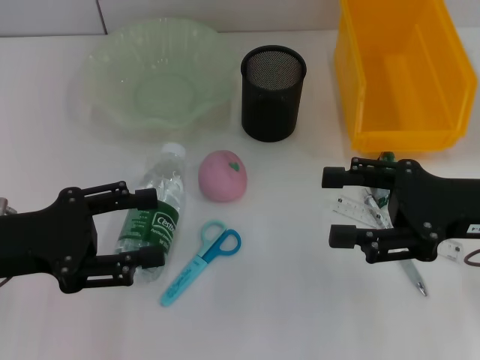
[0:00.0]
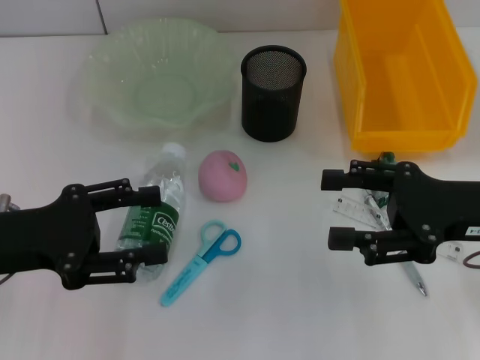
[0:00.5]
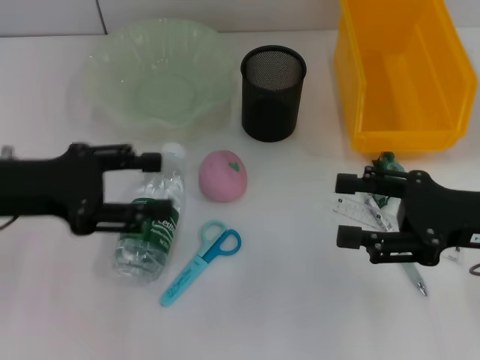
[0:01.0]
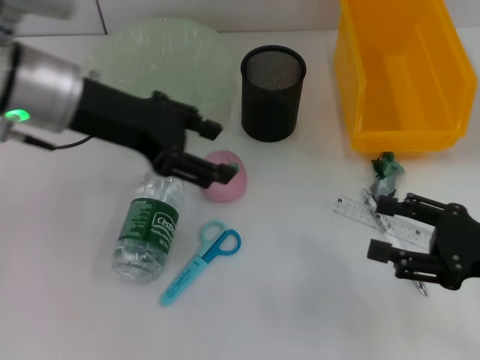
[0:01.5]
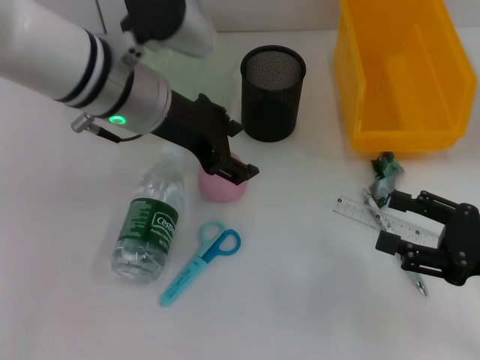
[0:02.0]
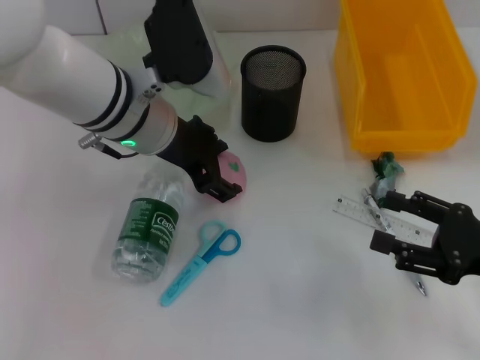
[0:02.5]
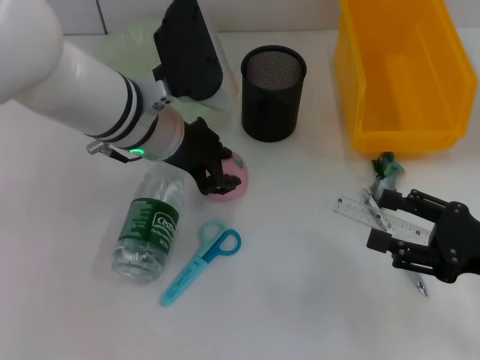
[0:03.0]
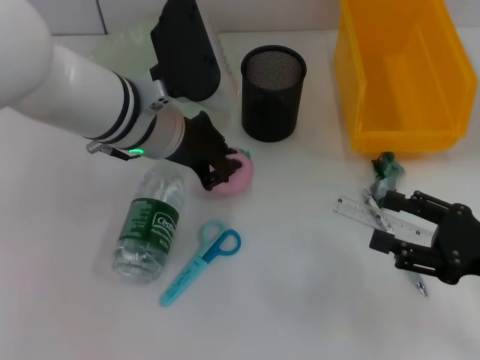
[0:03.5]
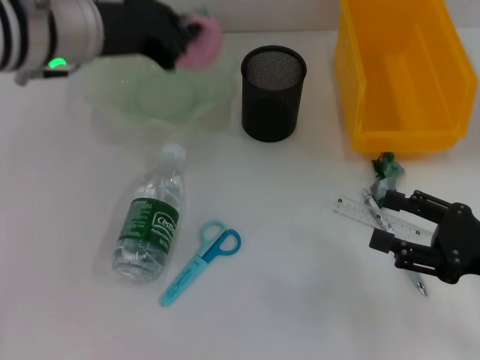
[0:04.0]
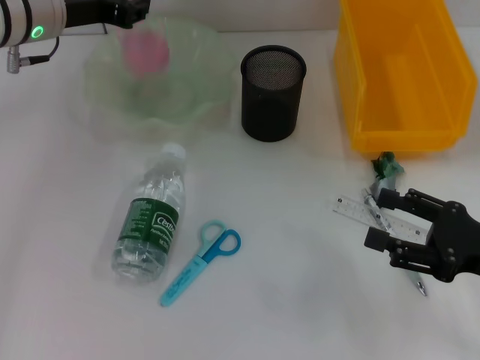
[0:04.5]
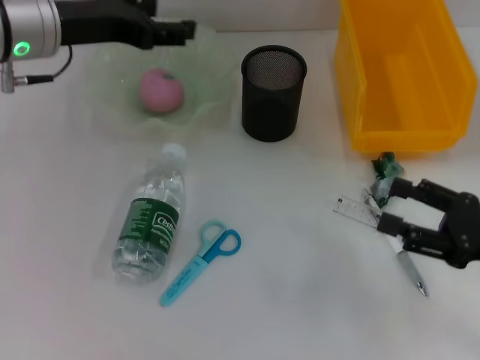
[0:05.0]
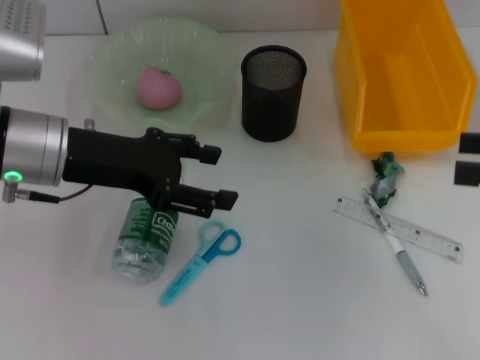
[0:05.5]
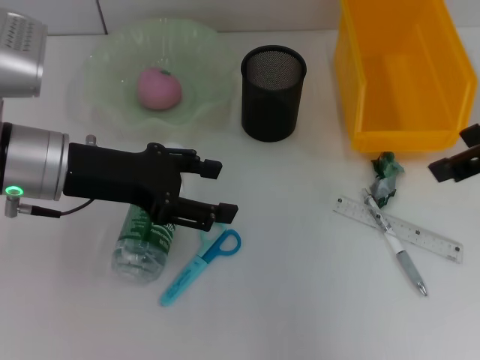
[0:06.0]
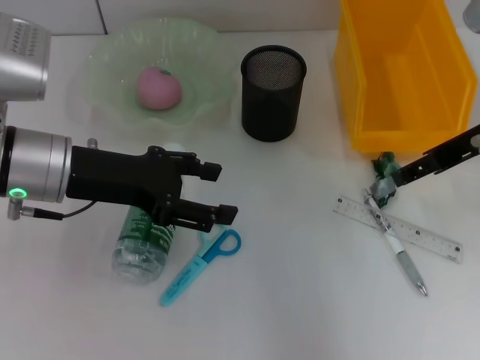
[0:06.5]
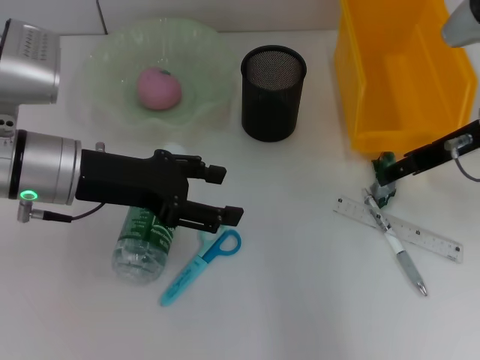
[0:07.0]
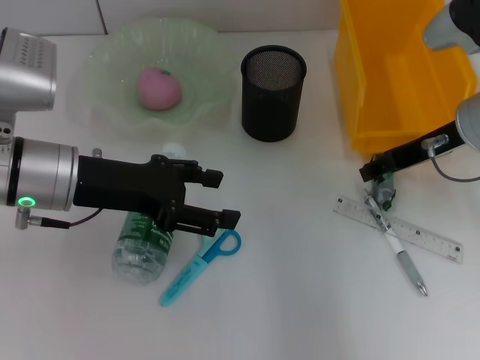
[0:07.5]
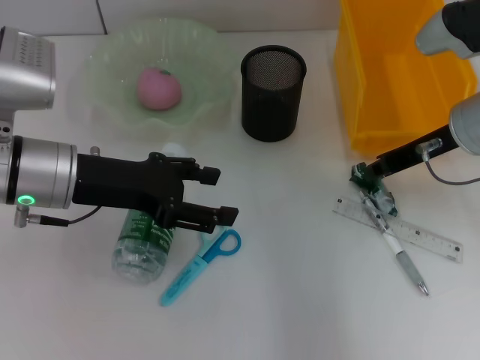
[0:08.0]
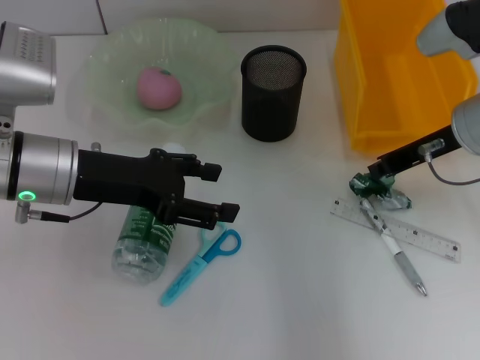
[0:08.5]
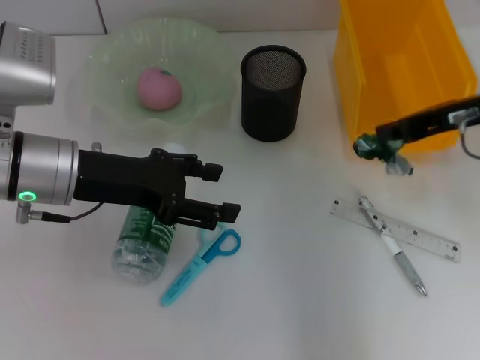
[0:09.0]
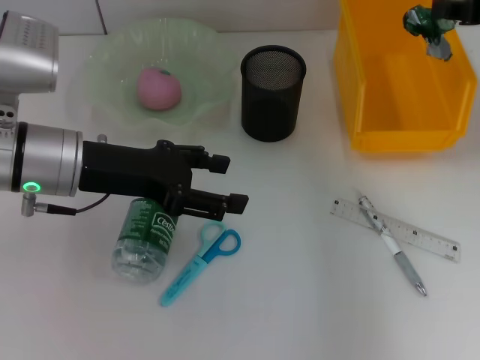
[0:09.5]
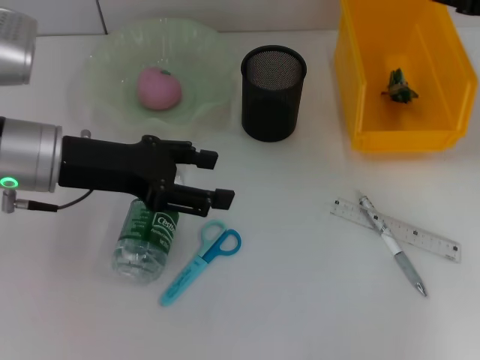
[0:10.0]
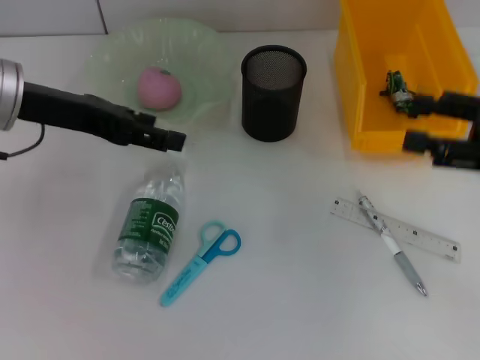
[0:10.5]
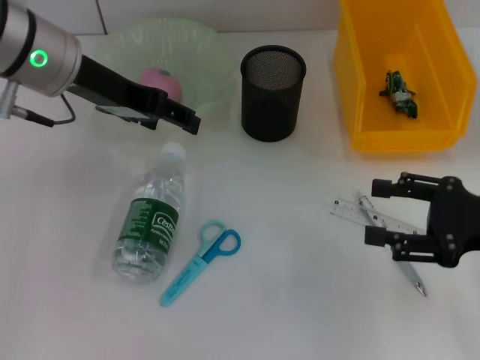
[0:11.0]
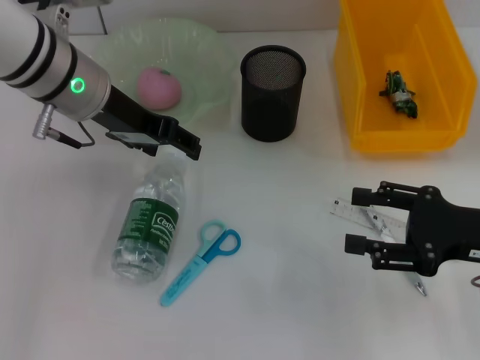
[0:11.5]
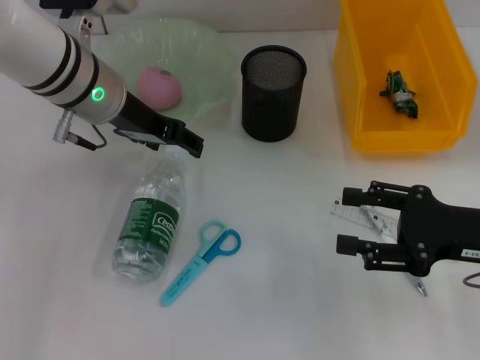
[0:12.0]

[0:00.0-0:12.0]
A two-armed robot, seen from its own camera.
Step, 0:00.0 to 0:03.0: Grab the peach with the left hand.
Step, 0:03.5 to 0:04.5: Place the peach into the fruit bowl with the left hand.
Step, 0:05.0 to 0:08.0: Grab the plastic with the right hand.
Step, 0:08.5 to 0:10.0: Place the plastic into the trash can with the right hand.
0:00.0 to 0:02.0: The left gripper shifts some 20 cm to the right and forward; the right gripper shifts roughly 10 cm downward and backward.
0:02.0 to 0:04.0: The left gripper moves some 5 cm, and closes its fingers.
0:04.0 to 0:06.0: The right gripper travels upward and forward by some 25 cm; the left gripper shifts approximately 10 cm downward and backward, and opens.
0:06.0 to 0:08.0: The right gripper moves downward and forward, some 15 cm, and closes up.
0:08.0 to 0:10.0: The right gripper moves to the right and upward, approximately 10 cm.
0:10.0 to 0:12.0: The right gripper goes approximately 15 cm backward and downward, and opens its fingers. The left gripper travels forward and to the right by some 10 cm.

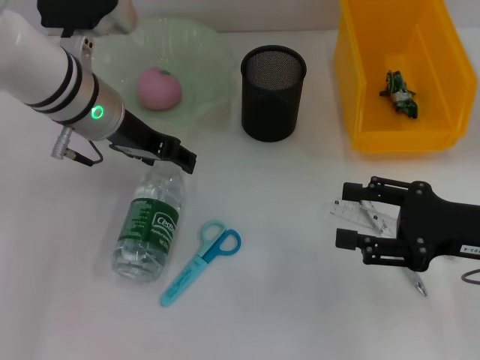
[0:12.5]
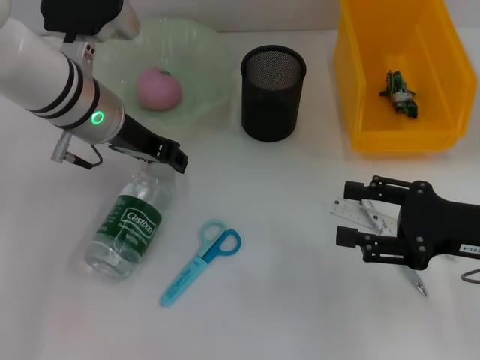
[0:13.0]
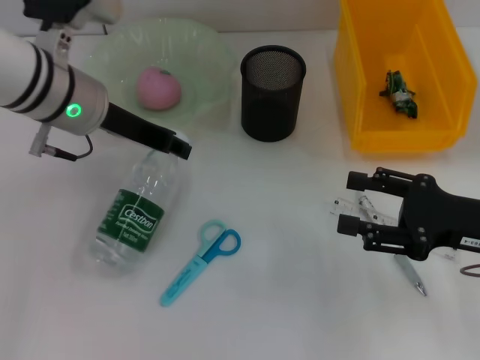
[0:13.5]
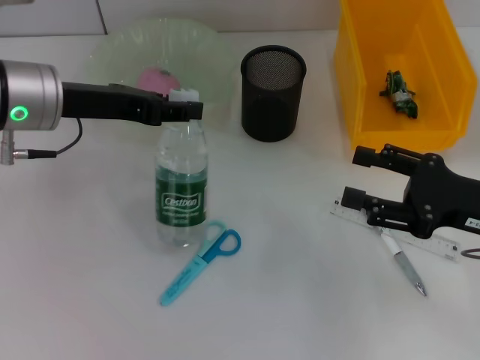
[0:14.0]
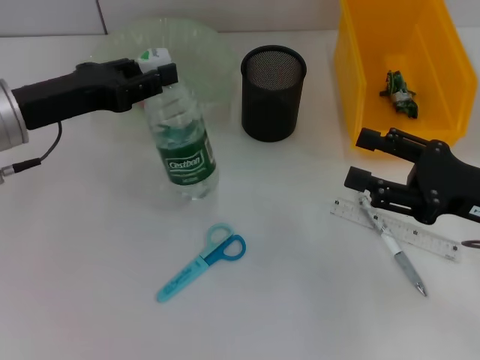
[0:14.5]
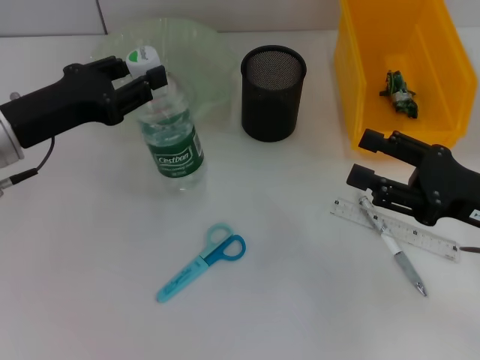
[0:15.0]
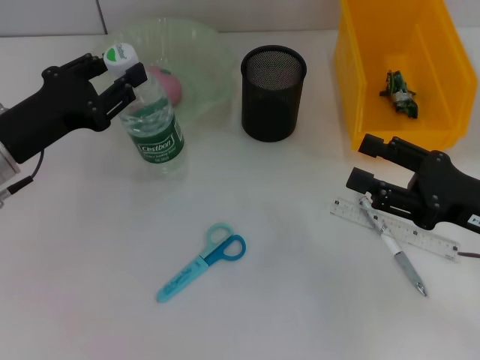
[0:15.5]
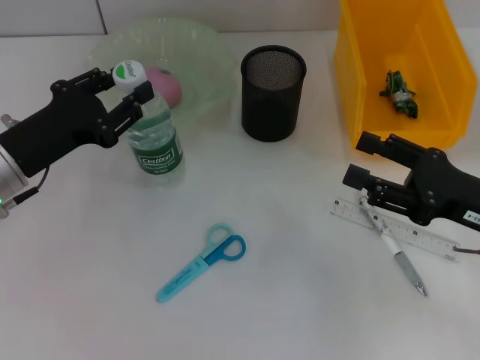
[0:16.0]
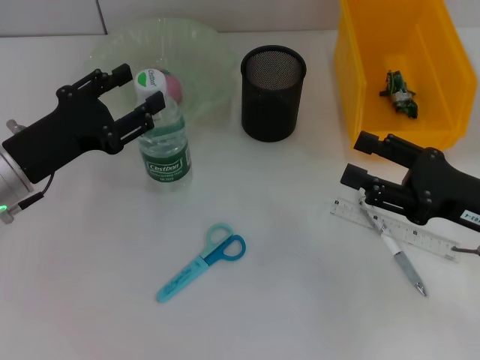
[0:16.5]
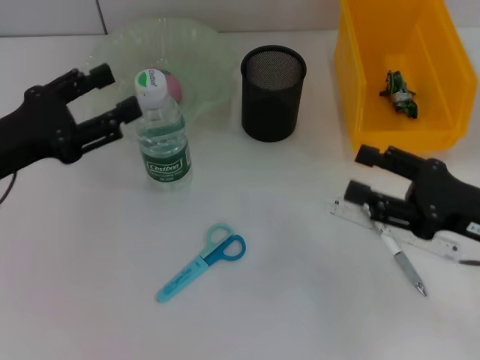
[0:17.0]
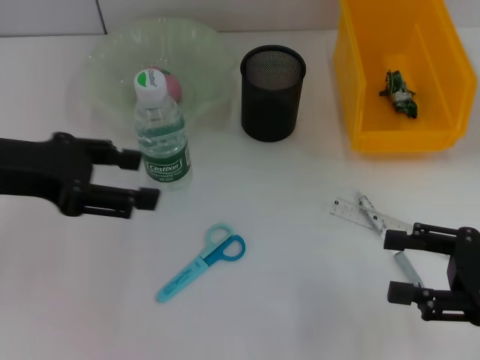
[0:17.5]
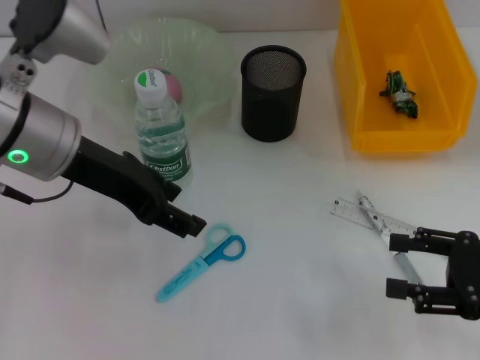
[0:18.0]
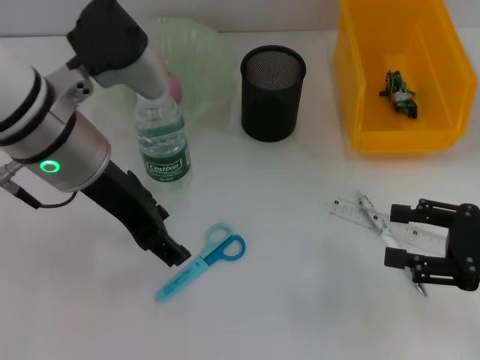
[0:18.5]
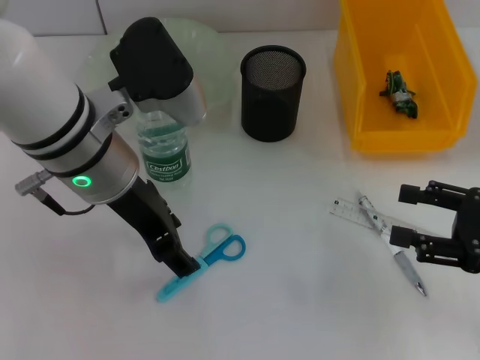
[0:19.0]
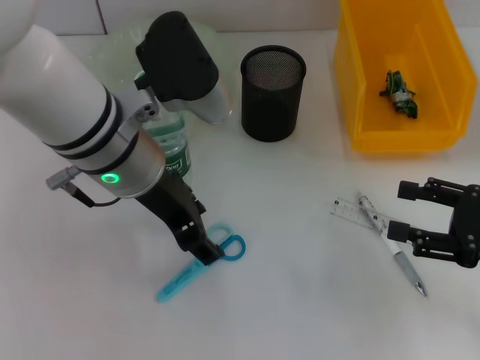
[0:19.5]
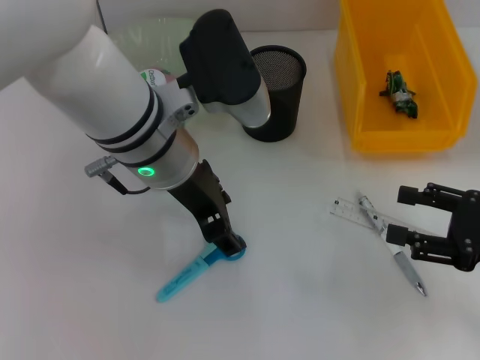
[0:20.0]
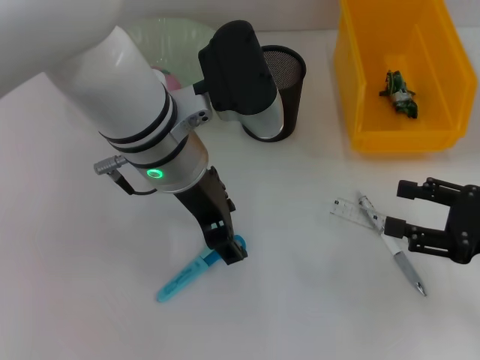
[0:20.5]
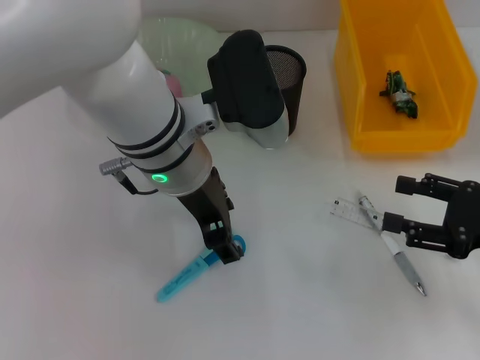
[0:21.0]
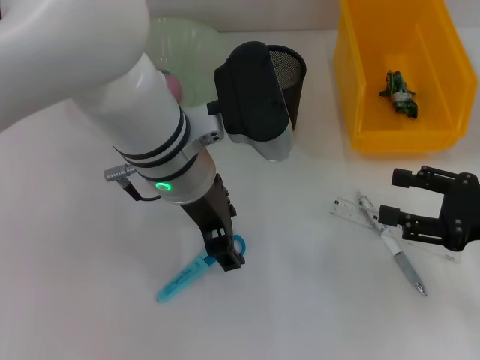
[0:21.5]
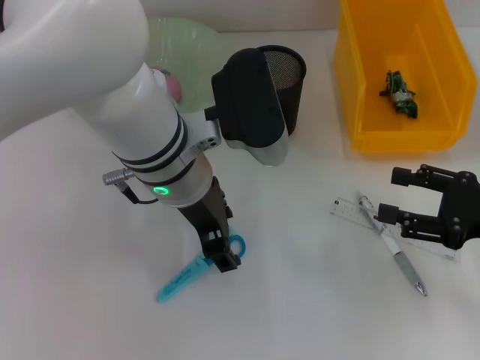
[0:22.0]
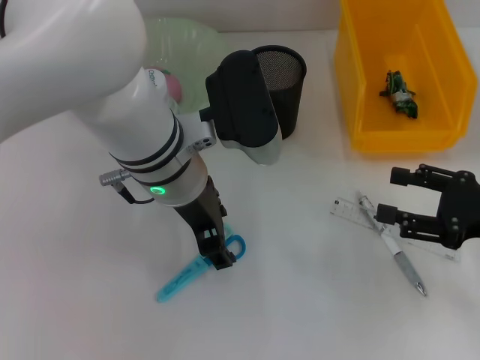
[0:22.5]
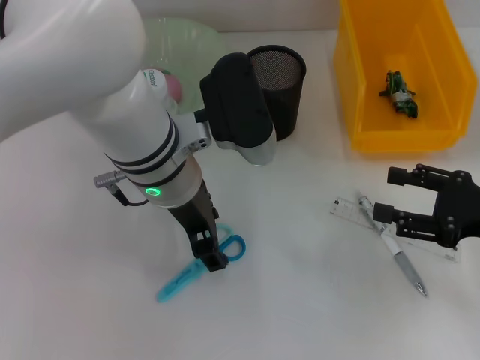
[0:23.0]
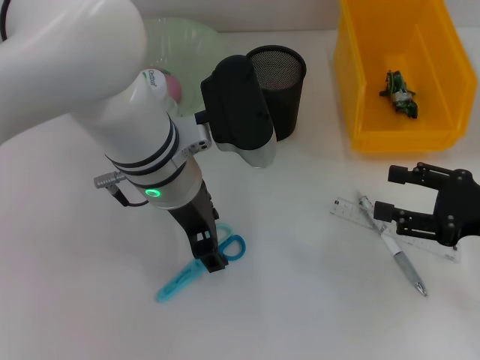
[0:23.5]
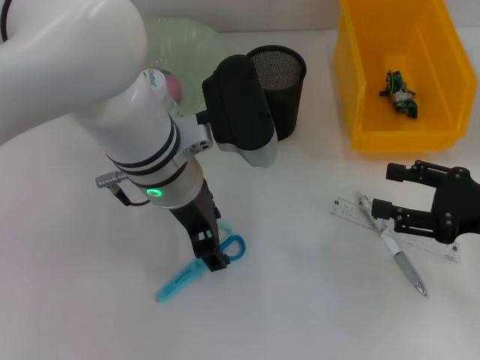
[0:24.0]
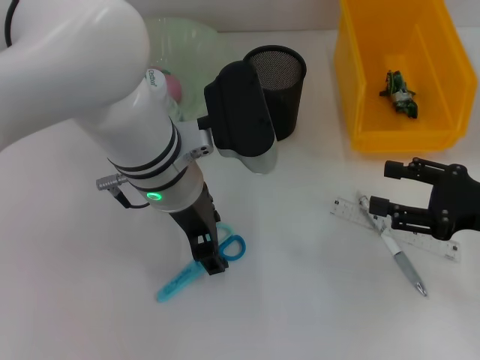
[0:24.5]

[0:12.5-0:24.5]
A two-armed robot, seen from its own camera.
Step, 0:13.5 to 0:16.5: Place the water bottle on the table with the left hand.
0:12.5 to 0:14.5: The left gripper shifts approximately 10 cm to the left and backward, and closes.
0:14.5 to 0:16.5: The left gripper travels downward by approximately 5 cm.
0:16.5 to 0:18.5: The left gripper moves upward and to the right, about 15 cm, while the right gripper shifts by roughly 5 cm.
0:18.5 to 0:20.5: The left gripper travels to the right by about 10 cm.
0:20.5 to 0:22.5: There are only small adjustments of the grippers.
0:22.5 to 0:24.5: Neither gripper changes place.

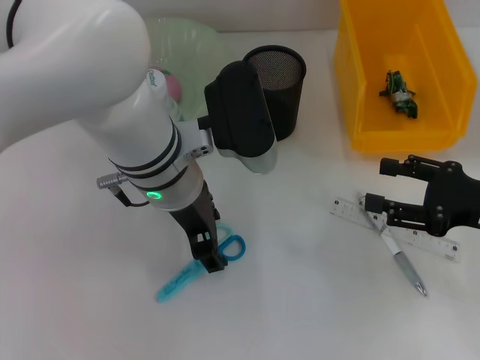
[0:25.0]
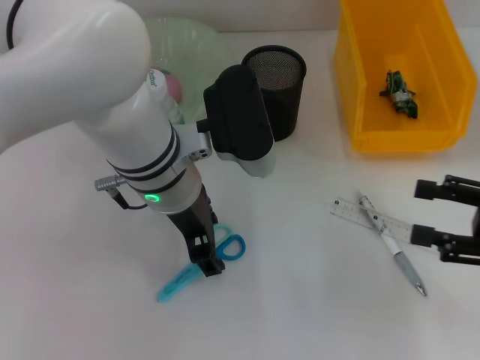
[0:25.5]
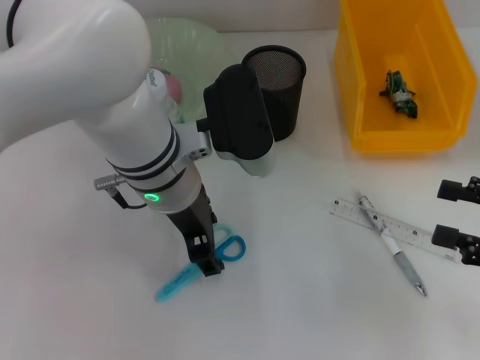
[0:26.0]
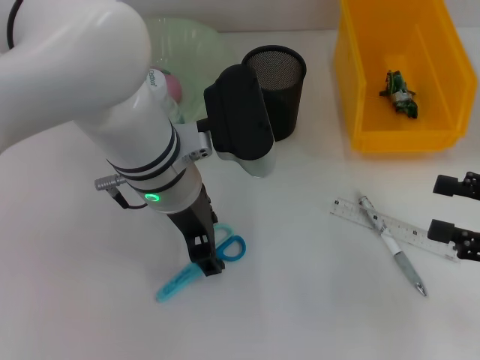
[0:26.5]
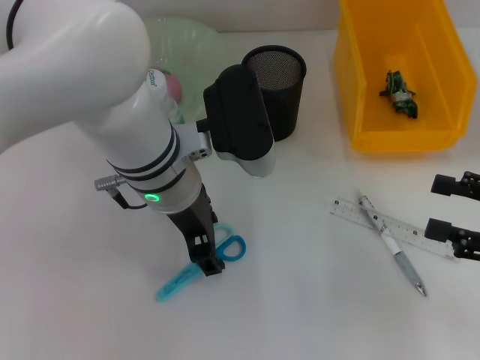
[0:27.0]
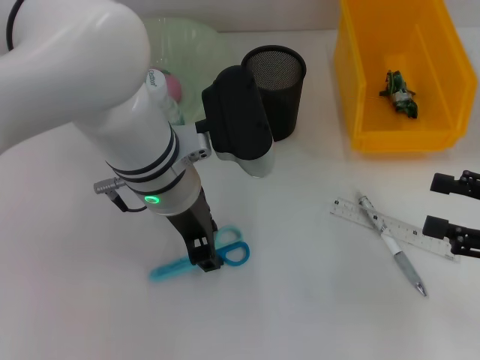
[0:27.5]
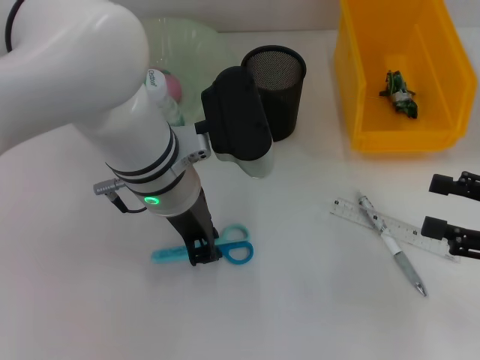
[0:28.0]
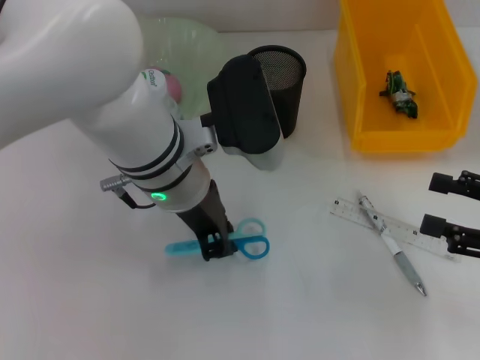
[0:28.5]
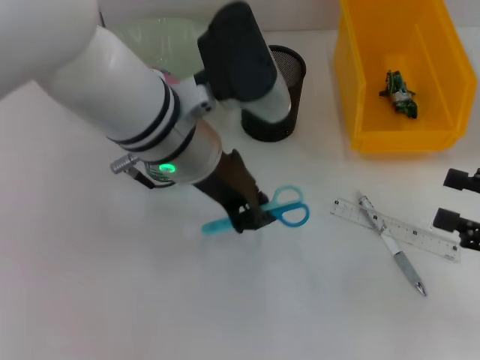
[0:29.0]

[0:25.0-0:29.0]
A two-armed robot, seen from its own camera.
0:25.0 to 0:27.0: The right gripper changes place by roughly 5 cm.
0:27.0 to 0:29.0: The left gripper closes.
